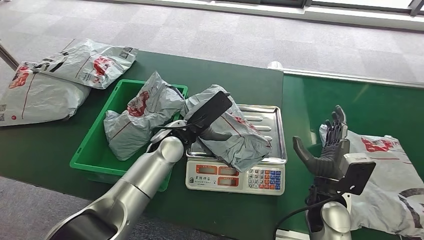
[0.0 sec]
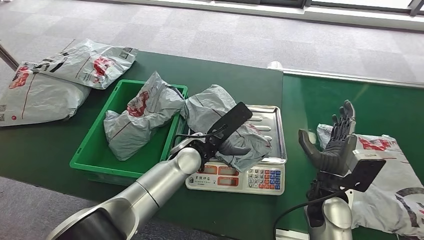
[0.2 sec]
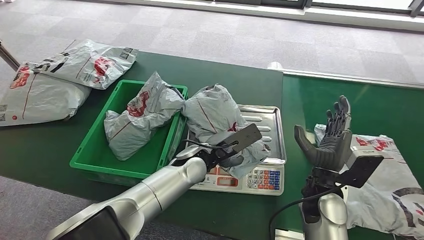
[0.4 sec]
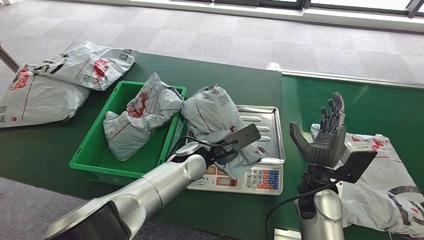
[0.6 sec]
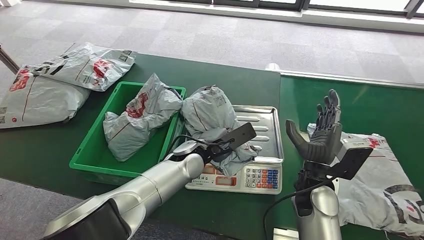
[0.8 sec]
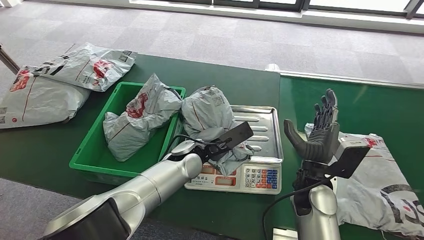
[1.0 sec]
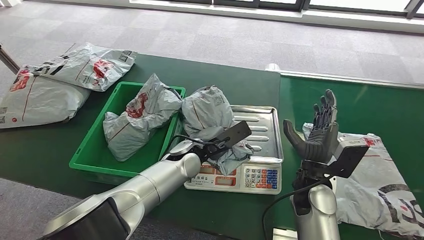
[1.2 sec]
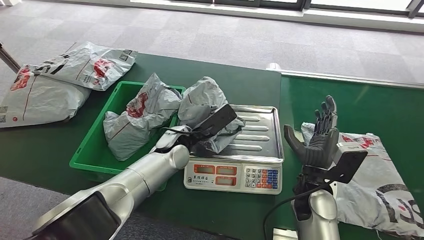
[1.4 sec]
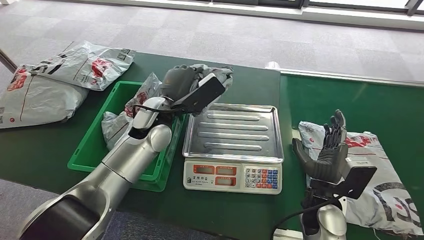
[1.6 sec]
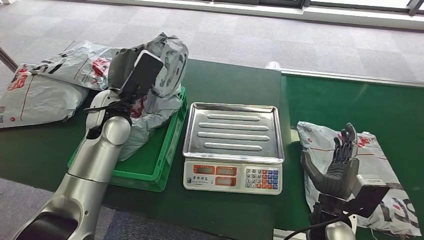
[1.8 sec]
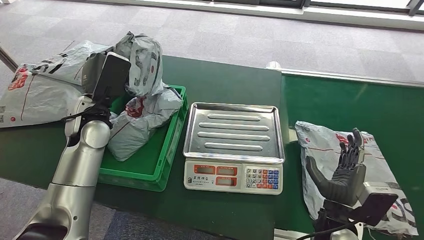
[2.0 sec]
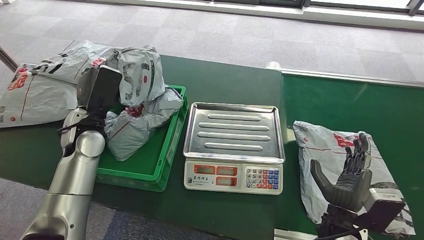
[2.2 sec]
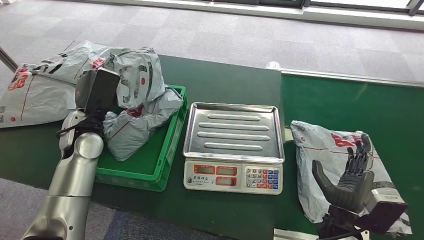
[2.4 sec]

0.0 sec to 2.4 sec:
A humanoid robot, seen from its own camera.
Step, 0.0 sec to 1.8 sec: Pick up the package from the inbound machine.
Step, 2.0 sec to 2.4 sec: Place the package into the parcel locker.
